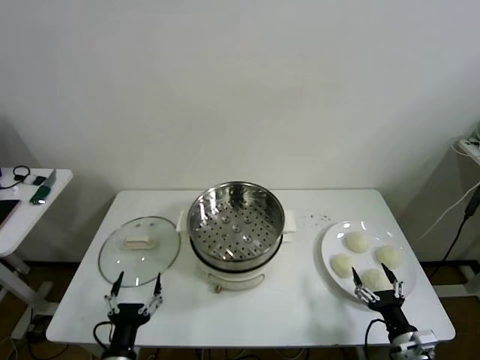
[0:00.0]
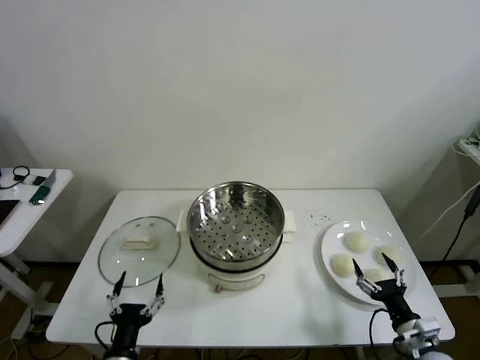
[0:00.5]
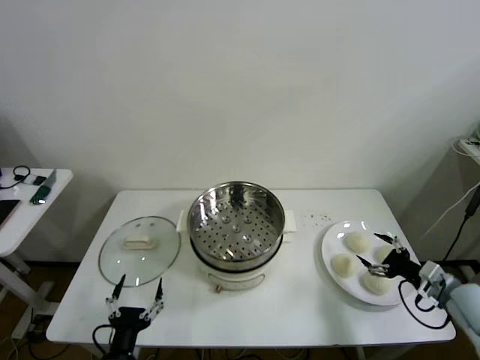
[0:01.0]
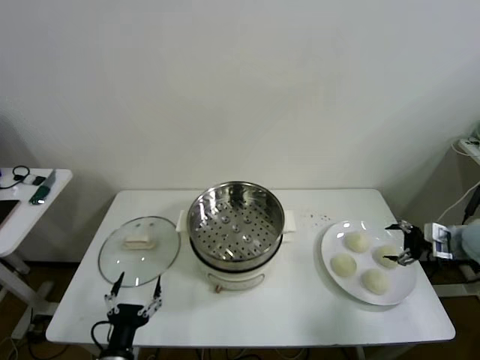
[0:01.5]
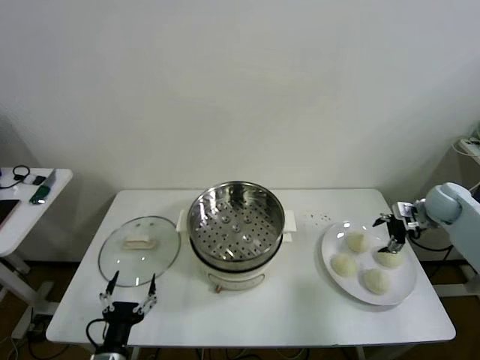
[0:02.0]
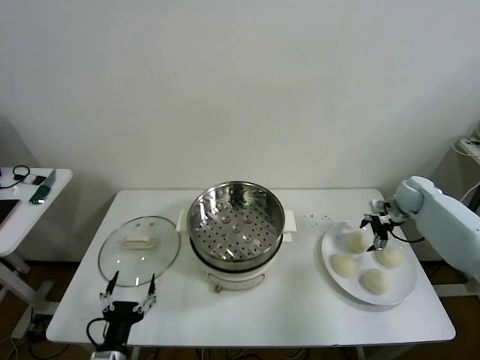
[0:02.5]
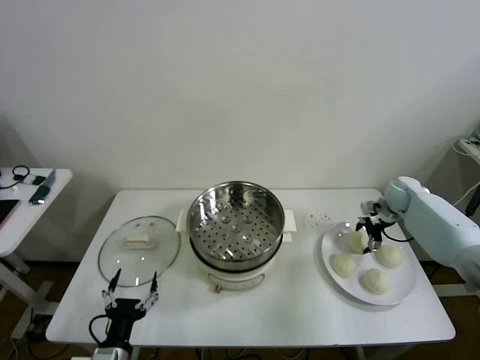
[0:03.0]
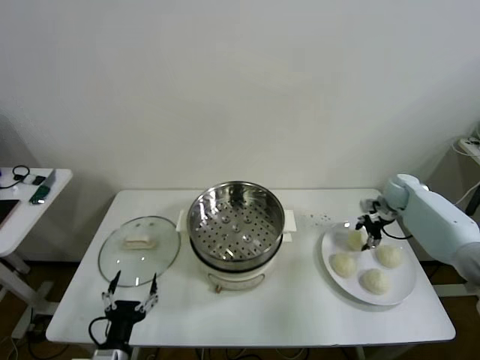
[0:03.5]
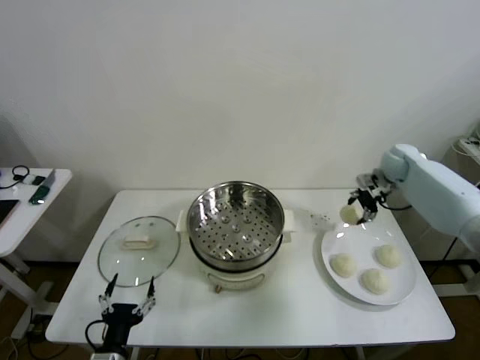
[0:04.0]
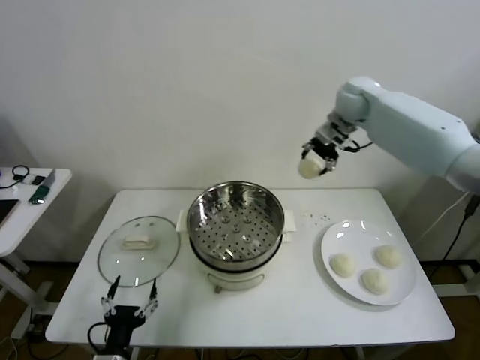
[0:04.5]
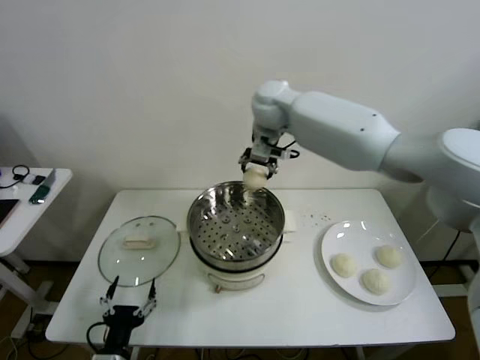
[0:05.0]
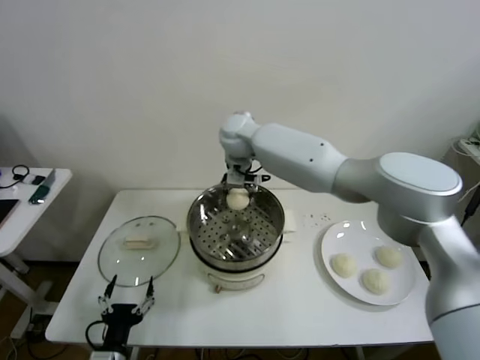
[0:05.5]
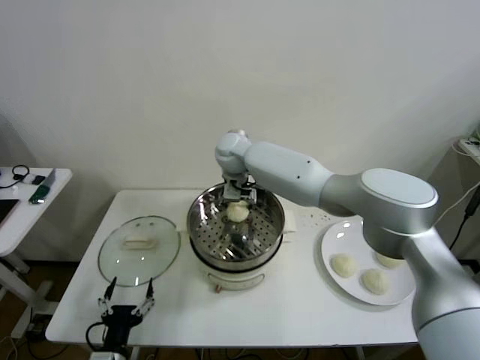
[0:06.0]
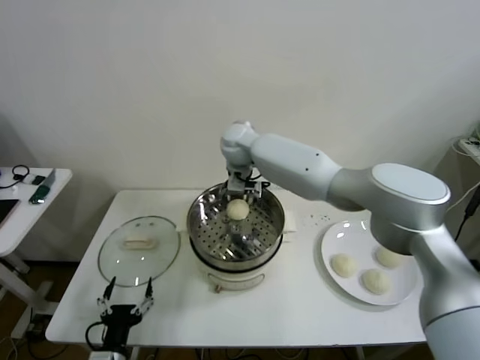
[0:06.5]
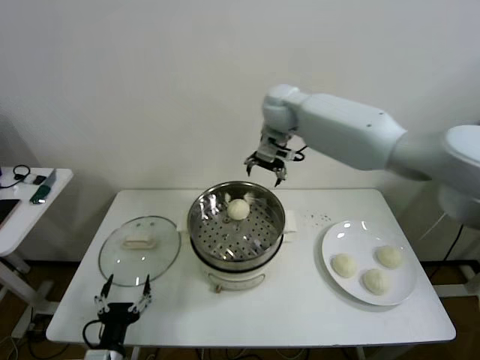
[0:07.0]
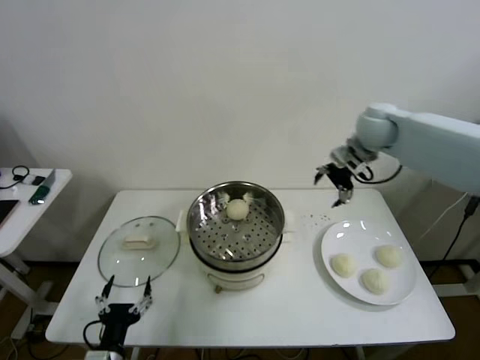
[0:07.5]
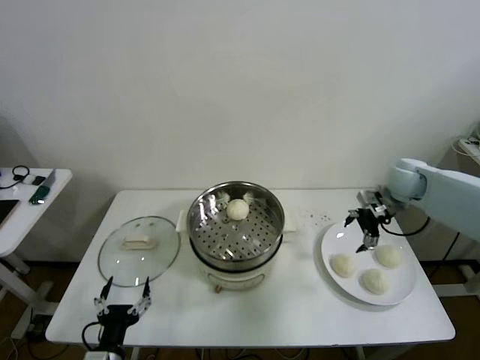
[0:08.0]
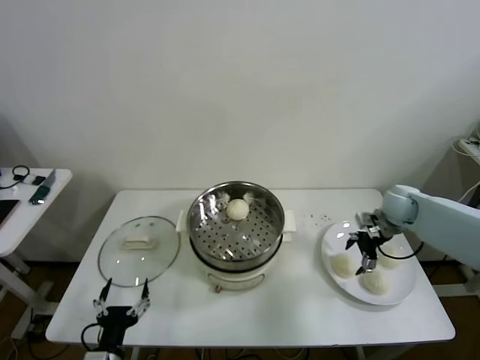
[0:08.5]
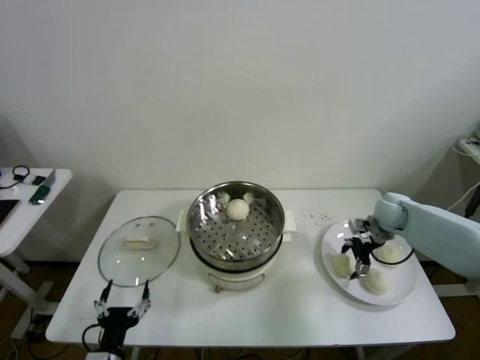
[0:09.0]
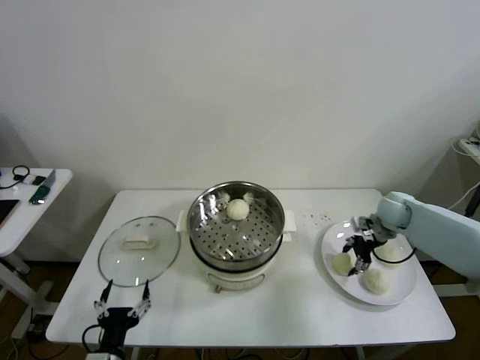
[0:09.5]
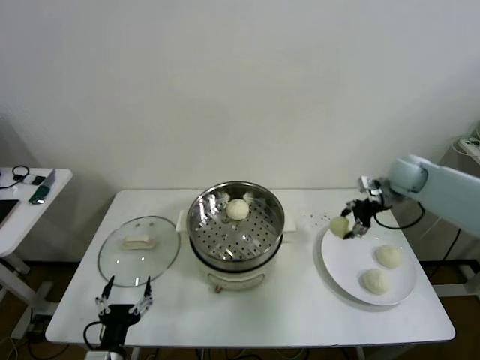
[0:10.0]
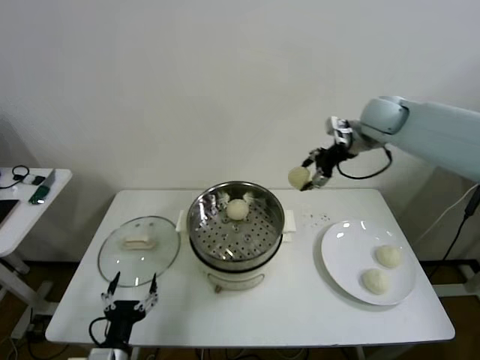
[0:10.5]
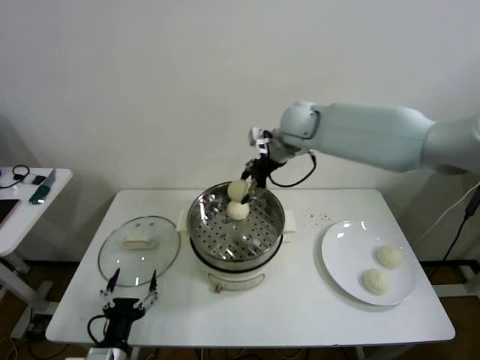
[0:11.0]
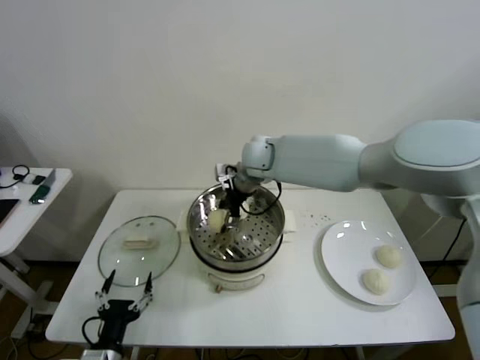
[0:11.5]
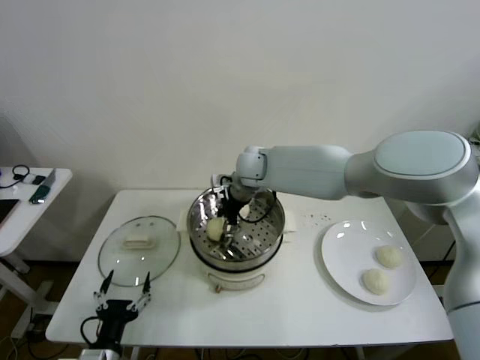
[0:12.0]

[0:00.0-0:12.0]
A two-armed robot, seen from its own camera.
Task of the whole recording: take steamed baozi put them in steamer then cover it.
Step, 0.0 to 3.0 s: Grasp the baozi in the plate with right gripper.
Step, 3.5 to 6.0 s: Place the baozi on the steamer with right gripper.
Step, 6.5 to 9.0 s: Grasp the baozi in the plate with right gripper.
2.0 to 4.0 s: The right gripper is displaced forward, to the left and upward by some 15 cm, and closes its fingers.
4.0 to 6.0 s: The right gripper heads to the left, covering some 40 cm, and opens up.
6.0 to 8.0 s: The right gripper travels to the right by approximately 40 cm.
8.0 to 10.0 s: The right gripper moves some 10 cm downward and comes back, and closes its fingers.
10.0 to 12.0 s: The right gripper is displaced to the left by approximately 35 cm, and opens.

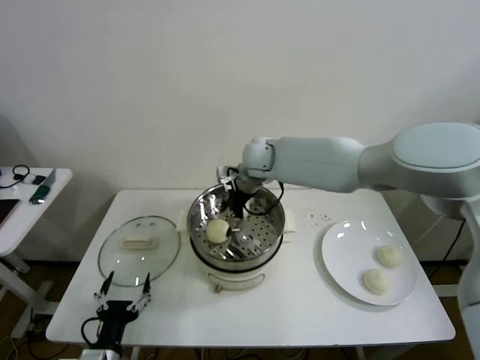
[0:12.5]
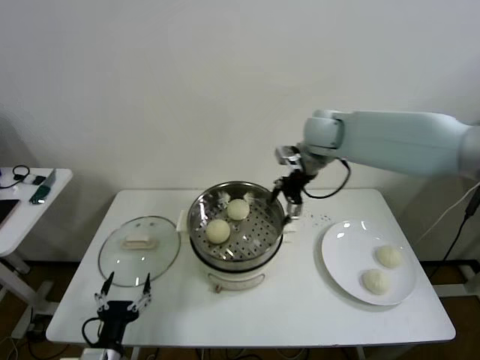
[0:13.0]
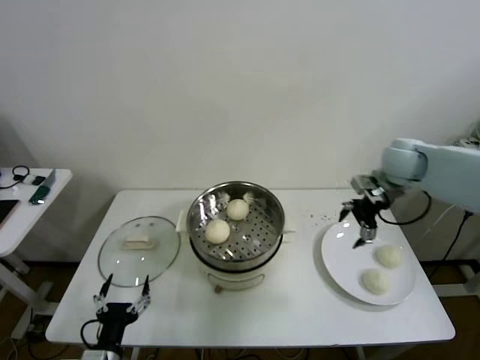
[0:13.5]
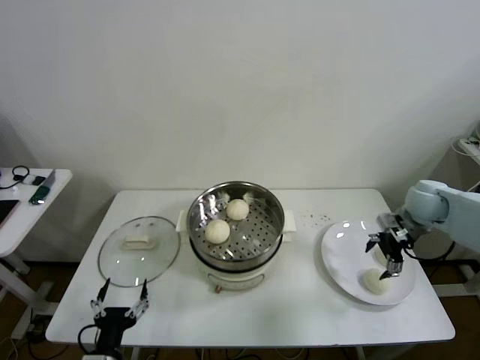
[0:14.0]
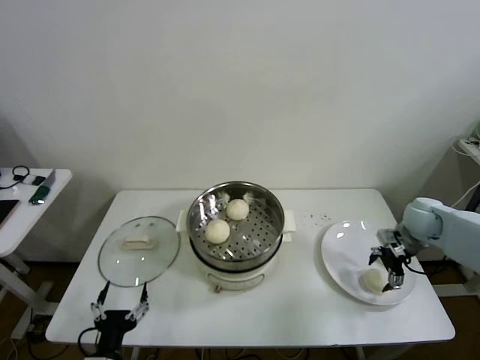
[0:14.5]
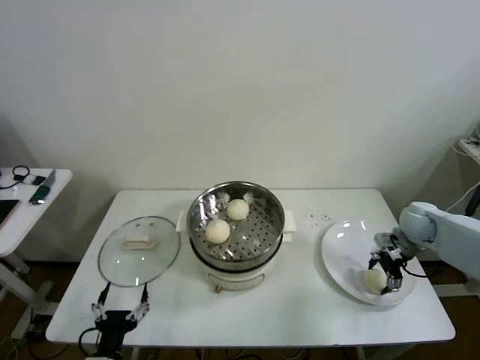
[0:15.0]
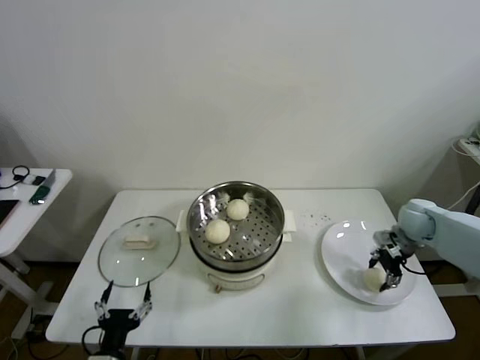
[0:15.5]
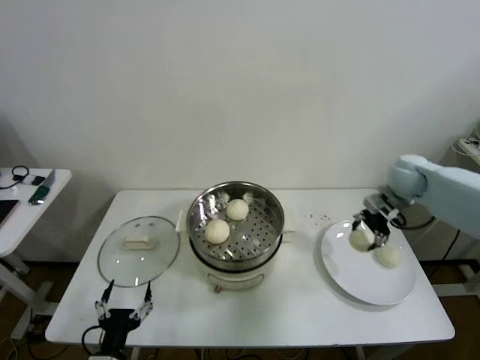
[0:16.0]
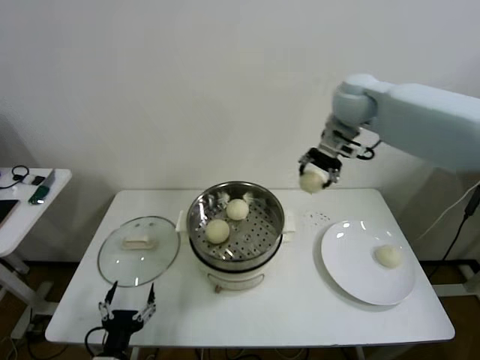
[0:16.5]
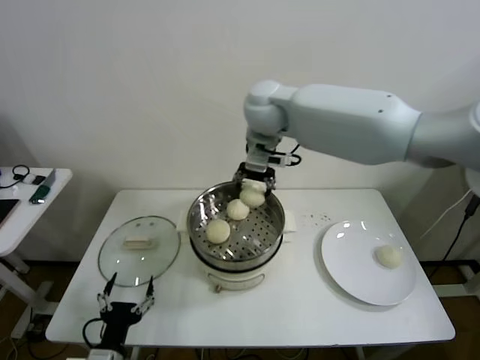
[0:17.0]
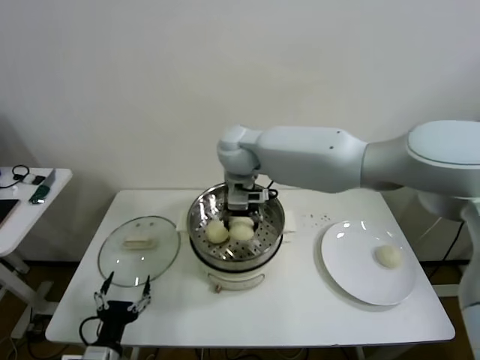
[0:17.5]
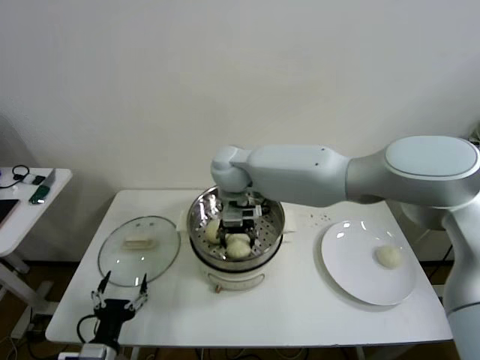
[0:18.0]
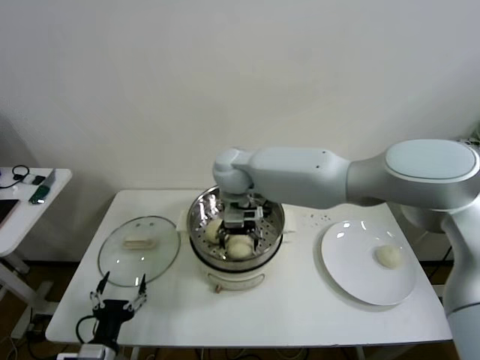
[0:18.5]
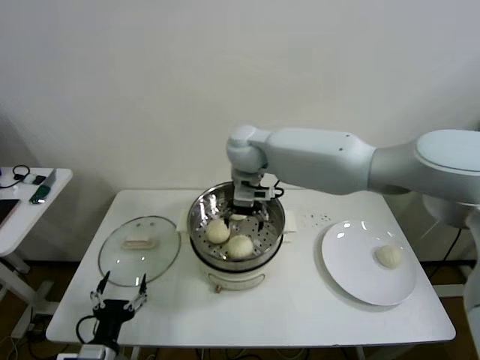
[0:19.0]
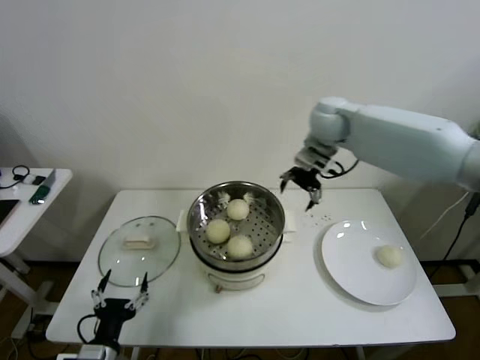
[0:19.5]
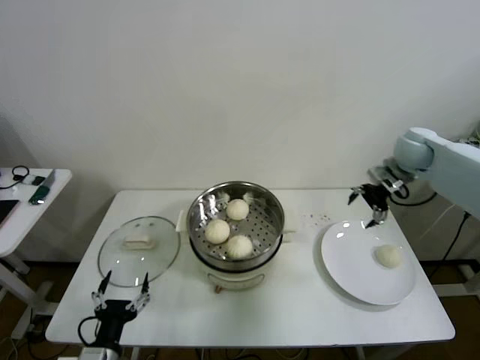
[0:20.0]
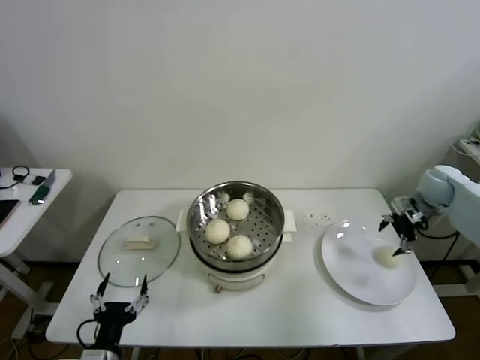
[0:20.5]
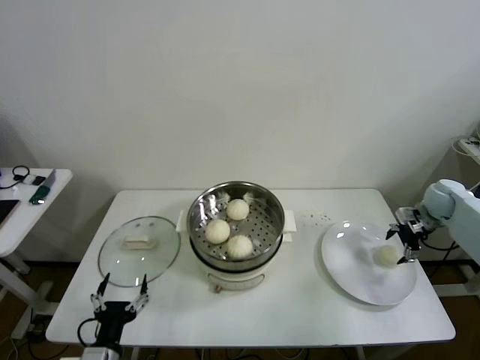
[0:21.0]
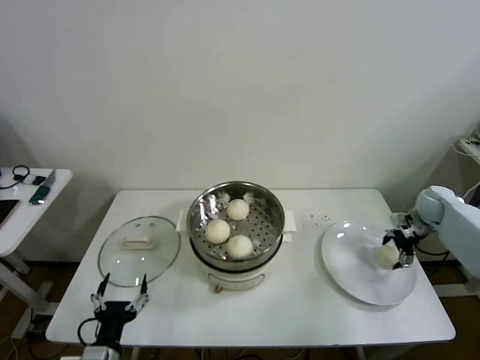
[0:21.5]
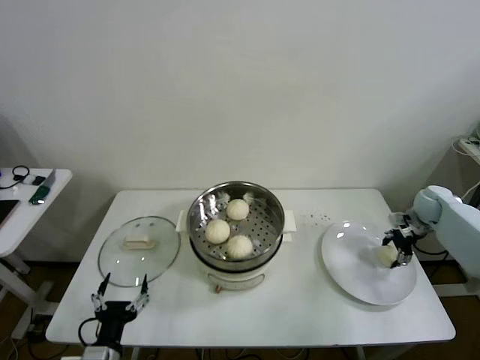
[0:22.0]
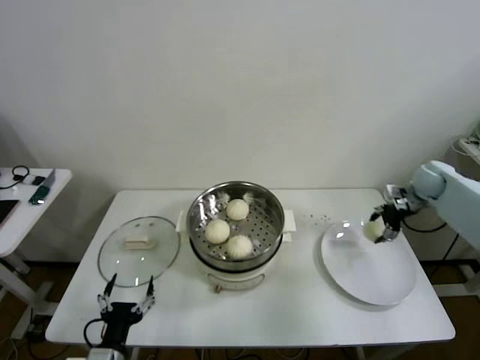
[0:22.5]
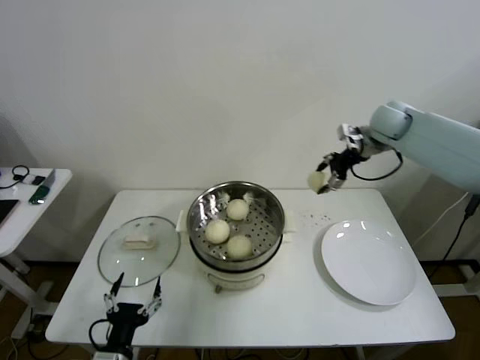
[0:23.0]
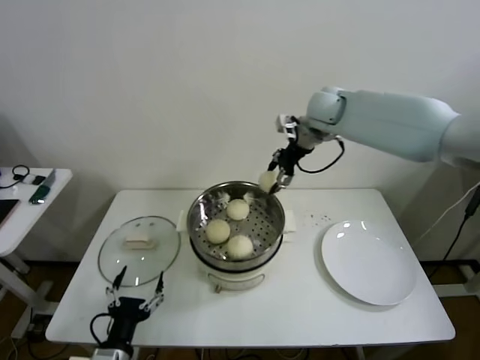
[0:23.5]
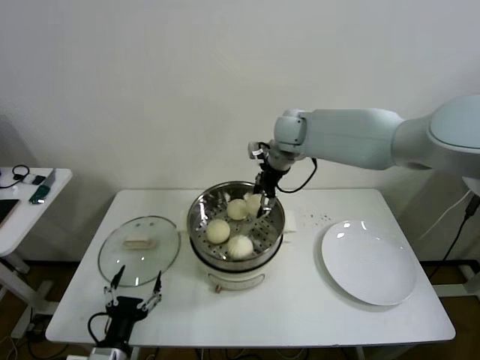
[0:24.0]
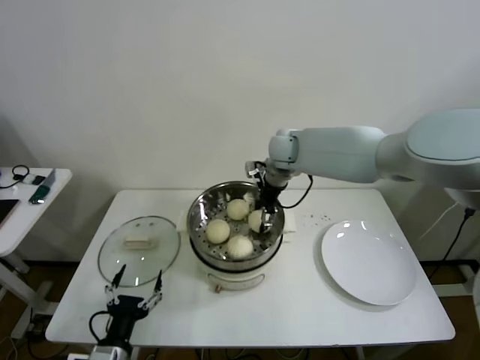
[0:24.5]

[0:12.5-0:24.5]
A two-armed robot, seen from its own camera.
Task of the whole recording: take steamed baozi put them in steamer then cover it.
Step, 12.5 to 15.0 s: Grasp the baozi in the plate with right gripper.
Step, 15.5 to 18.5 s: Place the baozi on the steamer with right gripper.
Step, 19.0 to 21.5 s: Grasp the baozi in the plate with right gripper.
12.5 to 14.5 s: The right gripper goes about 40 cm to the right.
14.5 to 16.5 s: The right gripper is displaced upward and to the left by about 35 cm, and closes.
16.5 to 18.5 s: The right gripper travels to the left and downward by roughly 25 cm, and opens its fingers.
18.5 to 20.5 s: The right gripper travels to the right by approximately 50 cm.
20.5 to 22.5 s: The right gripper closes up.
22.5 to 24.5 s: The right gripper moves to the left, about 35 cm.

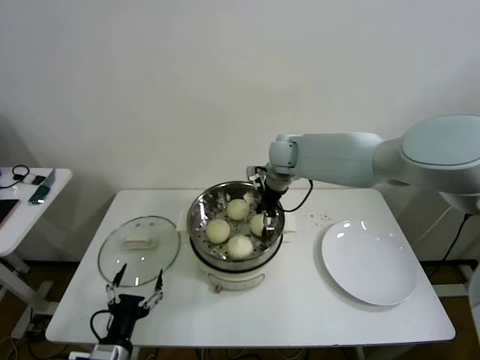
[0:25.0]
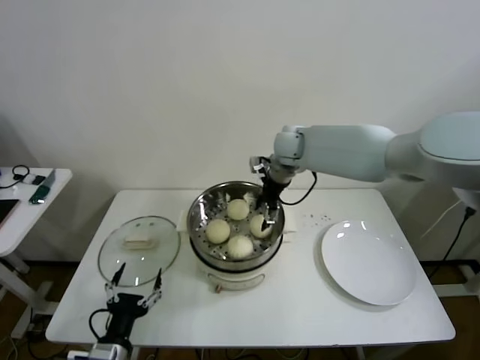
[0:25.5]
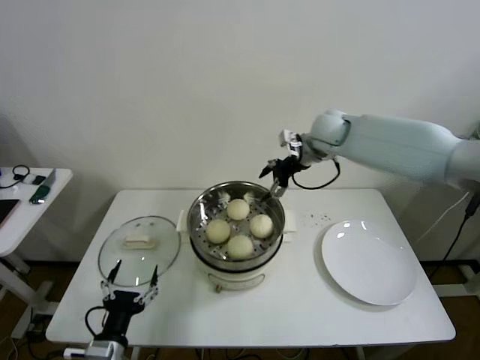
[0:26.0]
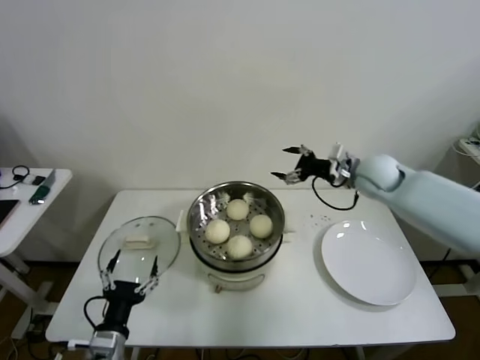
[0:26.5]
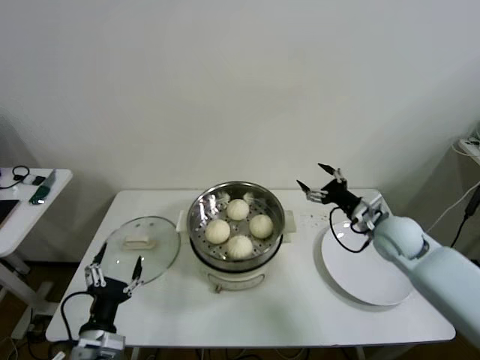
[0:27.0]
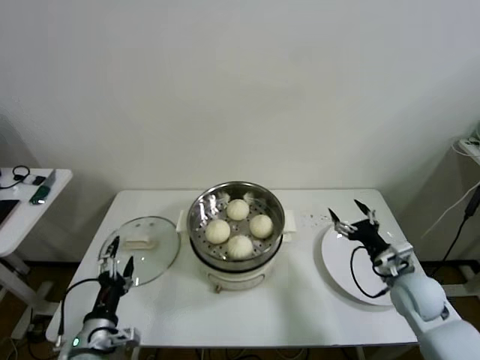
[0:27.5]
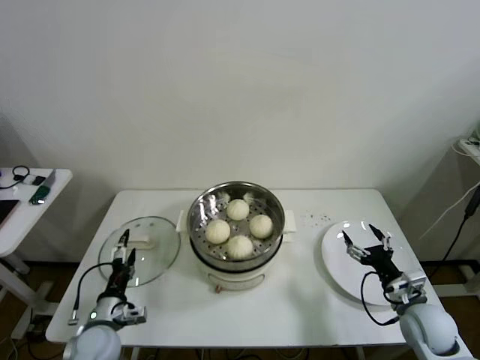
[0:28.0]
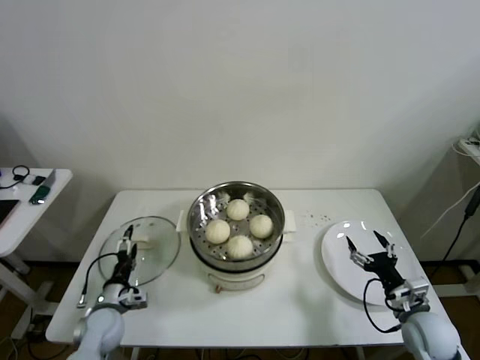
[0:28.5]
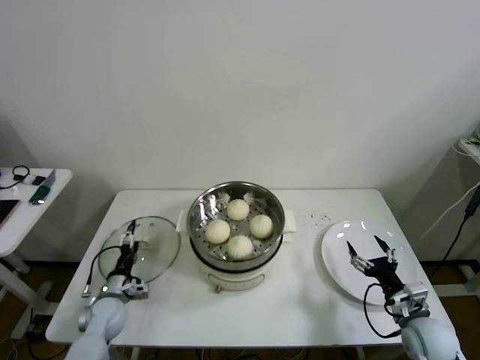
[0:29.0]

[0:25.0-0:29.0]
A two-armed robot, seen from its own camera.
Task of the whole recording: take steamed baozi put them in steamer then cover it.
25.0 to 27.0 s: The right gripper goes approximately 30 cm to the right, backward and downward, and opens its fingers.
27.0 to 29.0 s: The right gripper is displaced backward and downward by some 20 cm. The left gripper is displaced forward, downward and to the left by about 25 cm.
